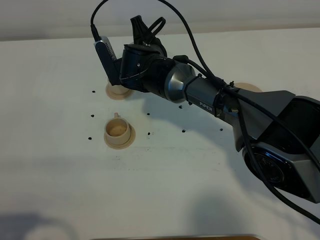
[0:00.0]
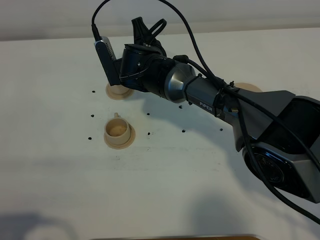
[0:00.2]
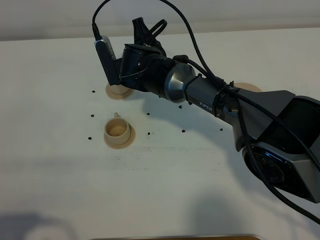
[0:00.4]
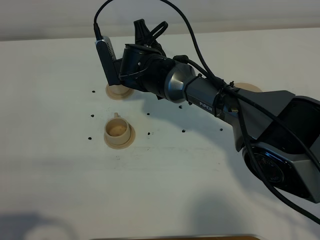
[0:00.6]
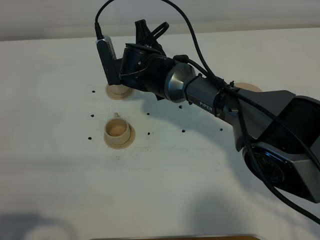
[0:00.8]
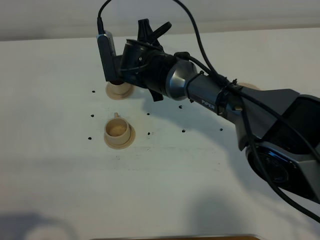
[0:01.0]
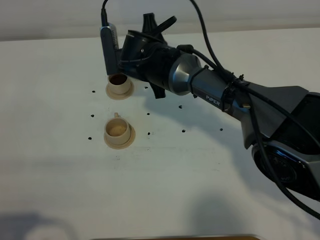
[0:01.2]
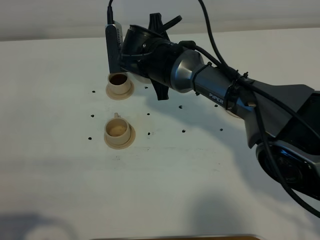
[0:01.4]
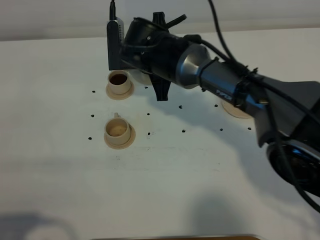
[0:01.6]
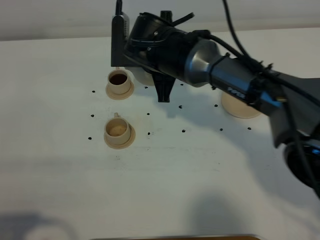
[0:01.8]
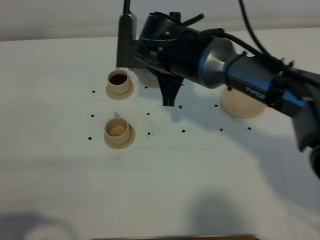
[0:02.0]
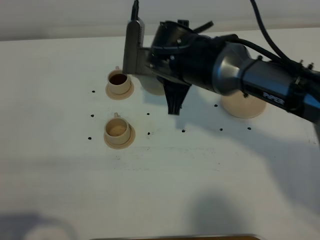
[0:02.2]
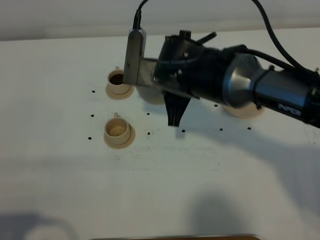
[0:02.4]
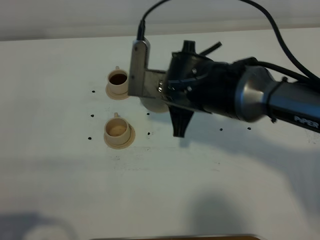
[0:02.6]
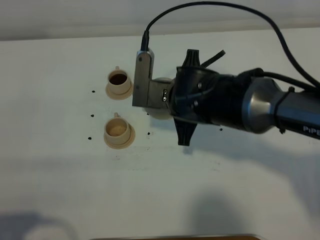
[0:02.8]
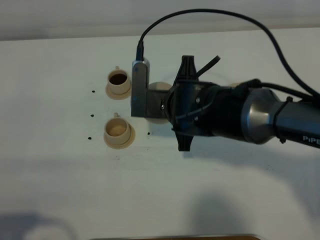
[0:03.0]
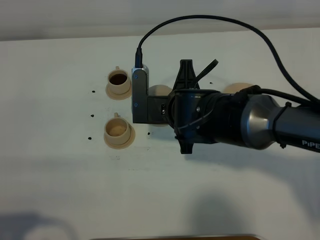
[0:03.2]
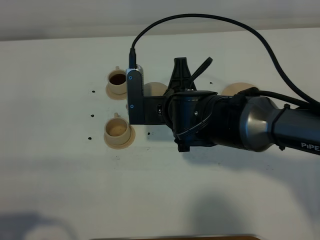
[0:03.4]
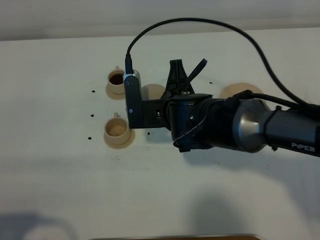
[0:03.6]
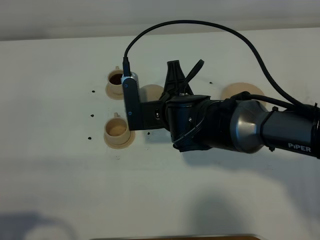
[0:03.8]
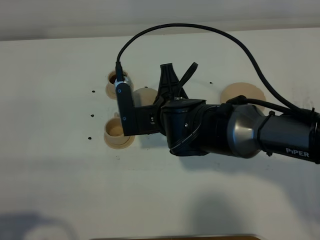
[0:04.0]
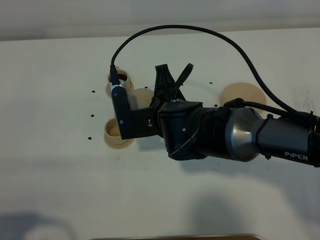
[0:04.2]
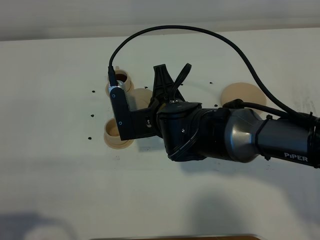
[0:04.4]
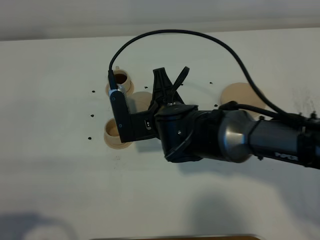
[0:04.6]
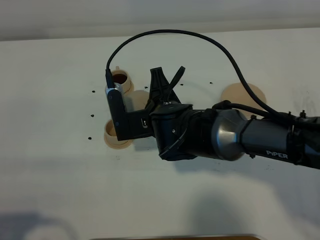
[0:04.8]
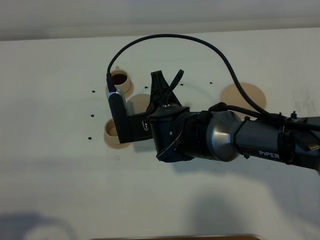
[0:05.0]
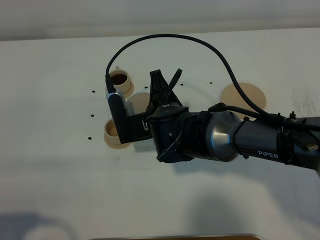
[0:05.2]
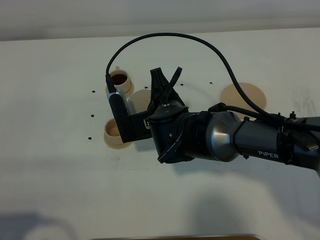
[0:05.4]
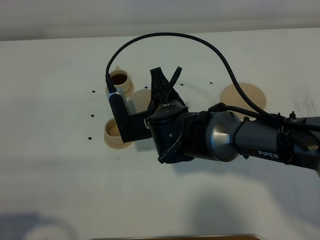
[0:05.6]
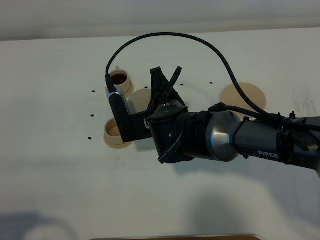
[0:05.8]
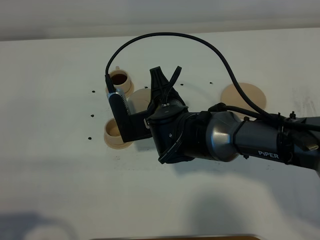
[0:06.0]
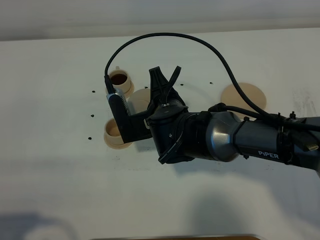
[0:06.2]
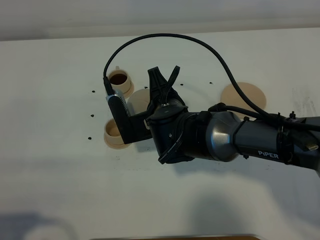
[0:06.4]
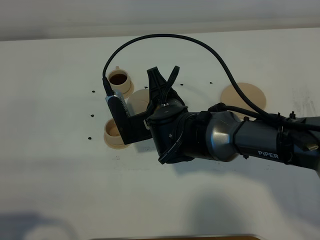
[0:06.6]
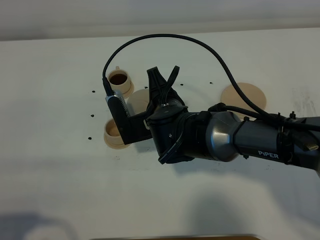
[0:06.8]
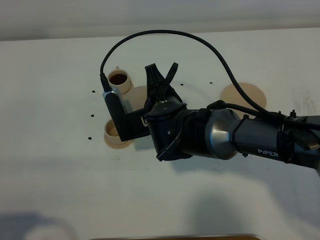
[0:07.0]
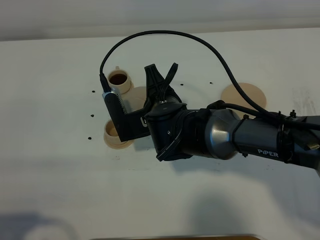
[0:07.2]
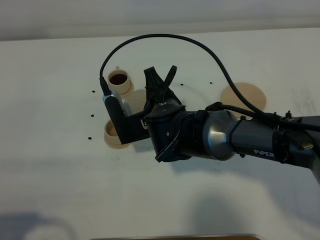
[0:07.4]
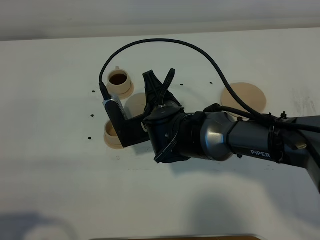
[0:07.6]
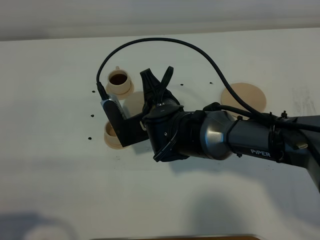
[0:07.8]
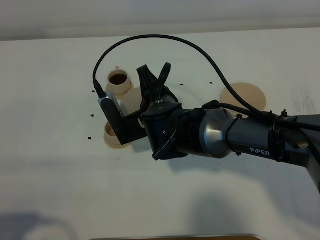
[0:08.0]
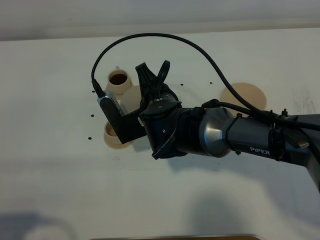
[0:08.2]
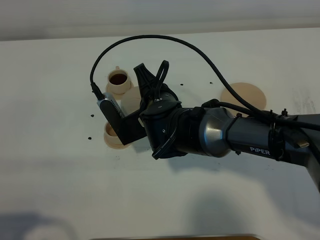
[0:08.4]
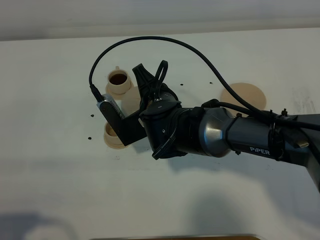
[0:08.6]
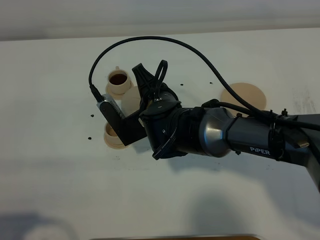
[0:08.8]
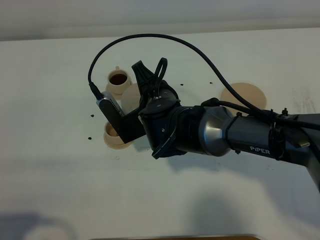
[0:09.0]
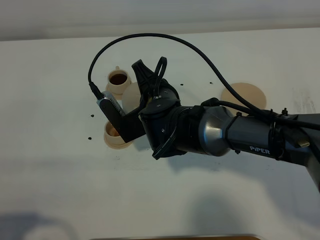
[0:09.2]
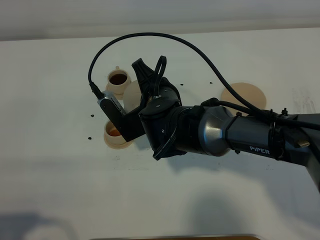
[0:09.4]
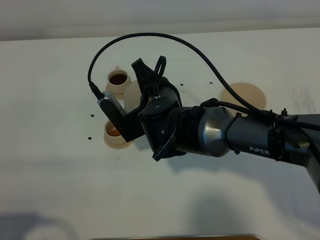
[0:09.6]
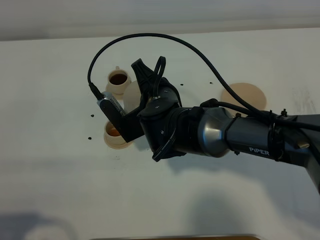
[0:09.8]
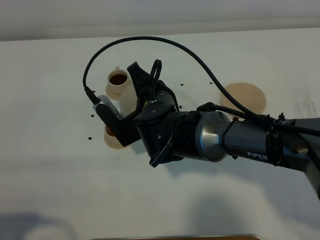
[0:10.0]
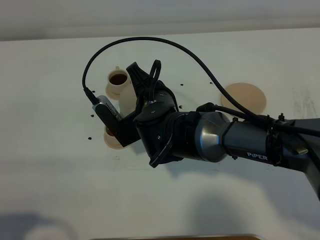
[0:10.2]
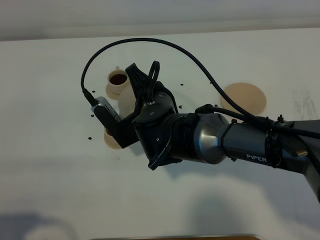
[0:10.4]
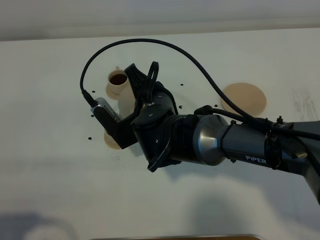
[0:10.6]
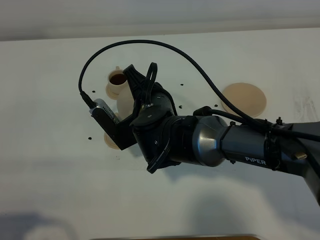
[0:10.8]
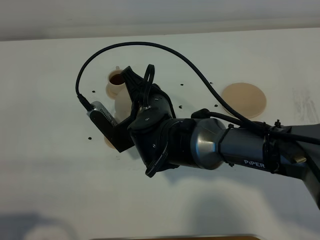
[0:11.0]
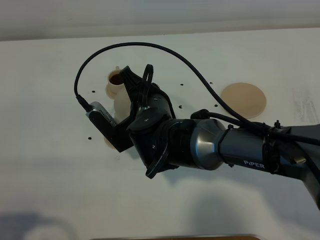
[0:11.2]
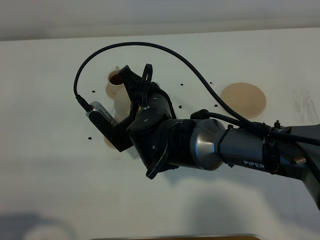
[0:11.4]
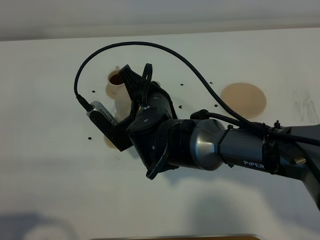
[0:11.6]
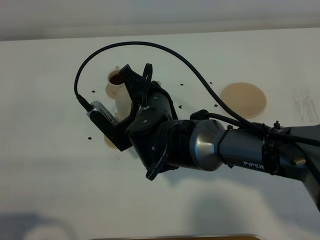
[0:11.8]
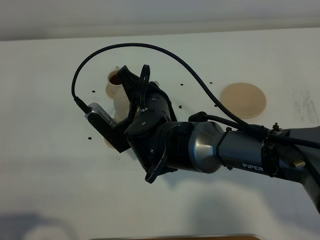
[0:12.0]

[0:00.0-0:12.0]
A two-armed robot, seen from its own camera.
Task of the whole recording: grasp the brown teapot and pour the tea into the two brown teacups one by one, put the brown teapot back in its original place.
0:00.0 to 0:01.6: The right gripper ends up some 5 cm from where it was.
0:01.6 to 0:03.0: The right gripper moves backward, roughly 10 cm.
0:04.4 to 0:07.6: The grippers stay close to where they were, moving slightly.
0:07.6 to 0:09.0: The grippers move only a little.
0:09.0 to 0:10.4: Neither gripper changes place.
0:10.4 to 0:12.0: The grippers move only a little.

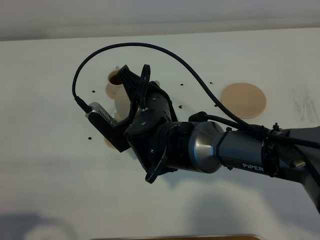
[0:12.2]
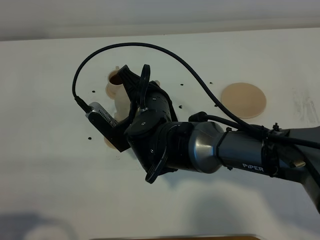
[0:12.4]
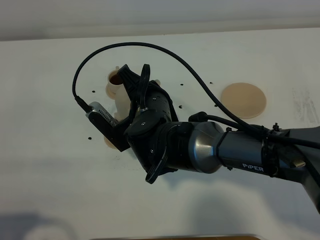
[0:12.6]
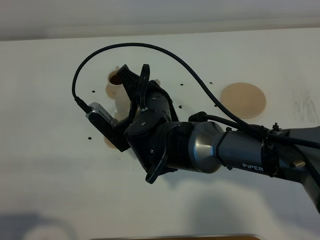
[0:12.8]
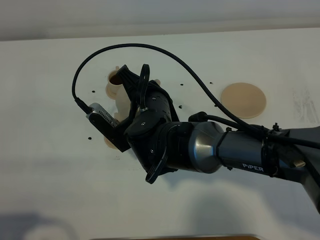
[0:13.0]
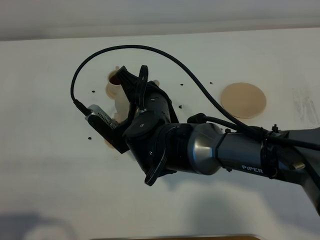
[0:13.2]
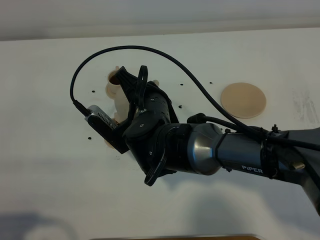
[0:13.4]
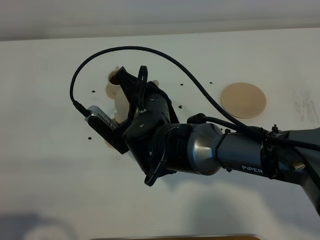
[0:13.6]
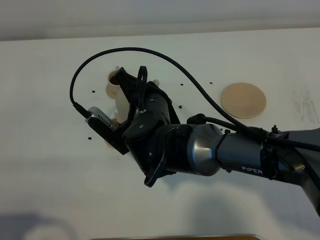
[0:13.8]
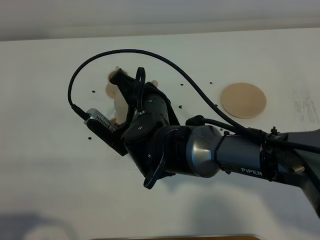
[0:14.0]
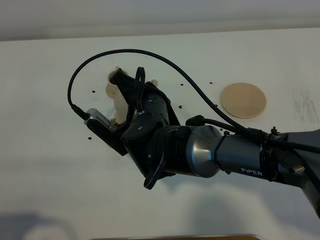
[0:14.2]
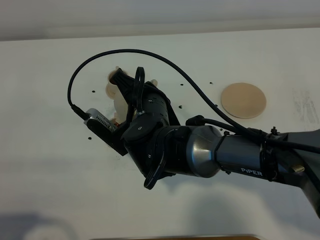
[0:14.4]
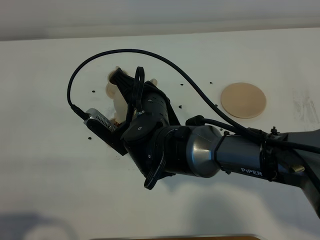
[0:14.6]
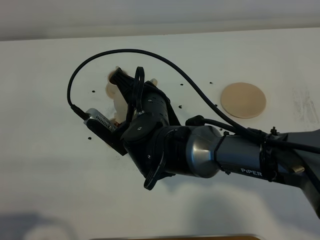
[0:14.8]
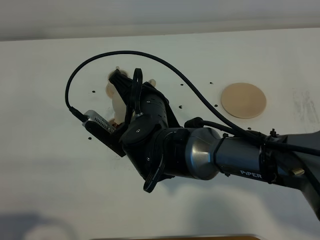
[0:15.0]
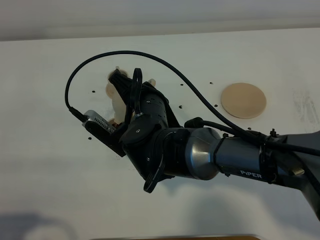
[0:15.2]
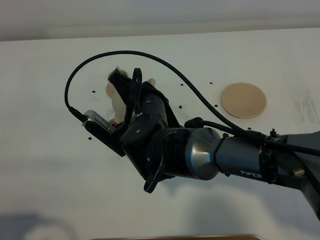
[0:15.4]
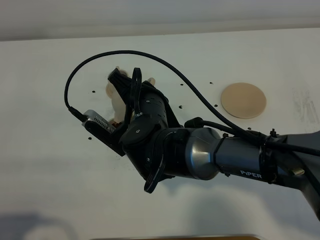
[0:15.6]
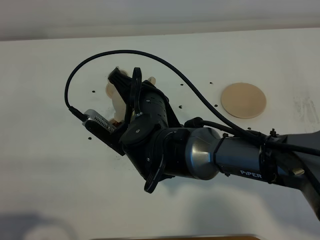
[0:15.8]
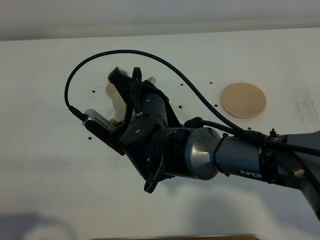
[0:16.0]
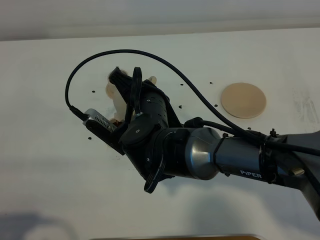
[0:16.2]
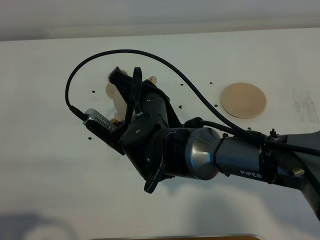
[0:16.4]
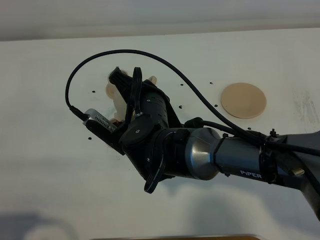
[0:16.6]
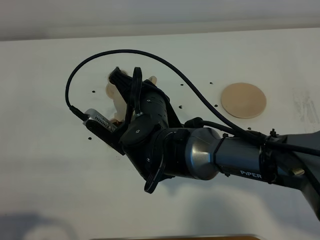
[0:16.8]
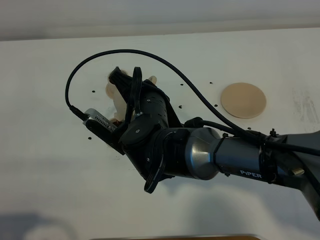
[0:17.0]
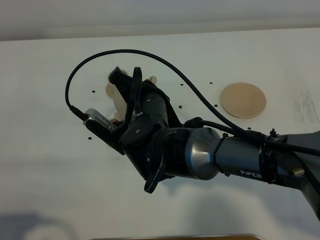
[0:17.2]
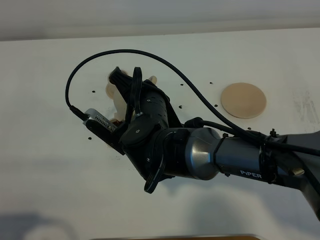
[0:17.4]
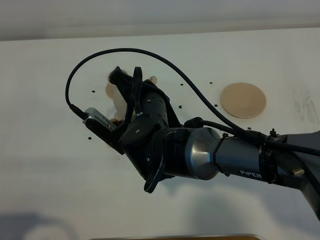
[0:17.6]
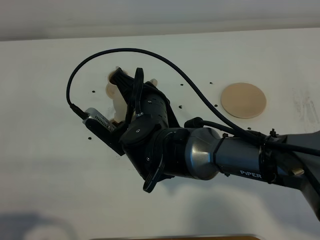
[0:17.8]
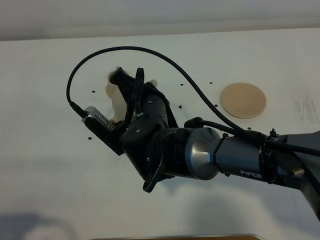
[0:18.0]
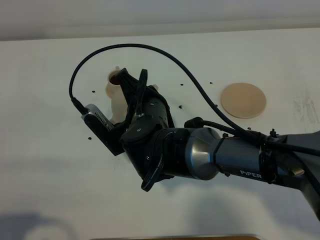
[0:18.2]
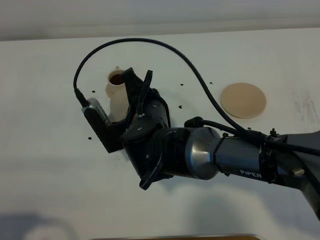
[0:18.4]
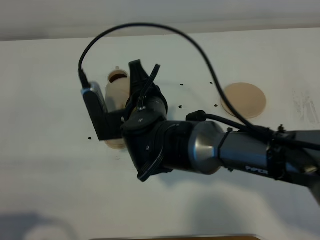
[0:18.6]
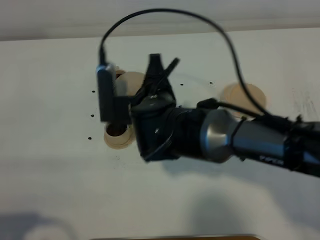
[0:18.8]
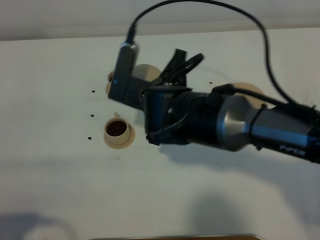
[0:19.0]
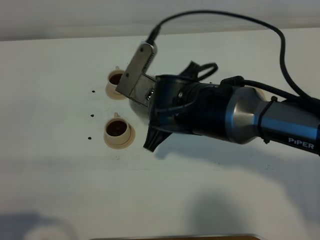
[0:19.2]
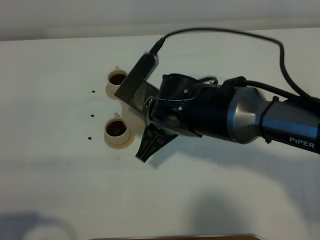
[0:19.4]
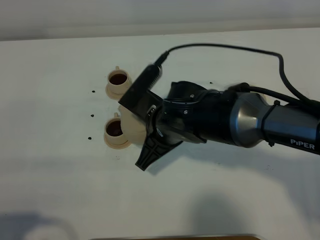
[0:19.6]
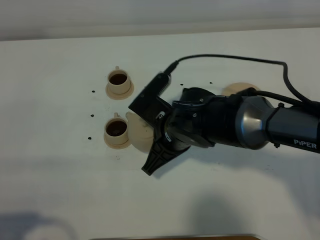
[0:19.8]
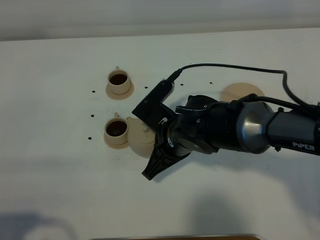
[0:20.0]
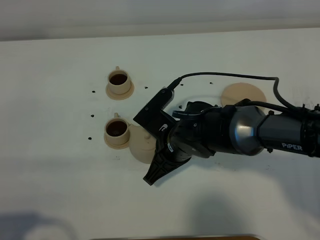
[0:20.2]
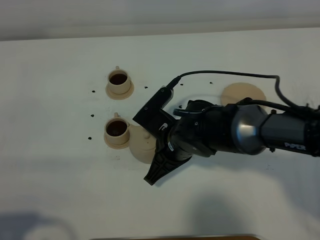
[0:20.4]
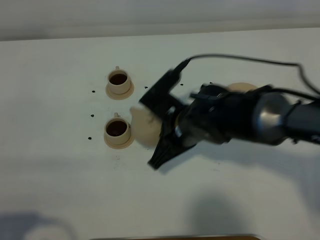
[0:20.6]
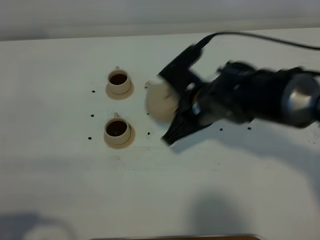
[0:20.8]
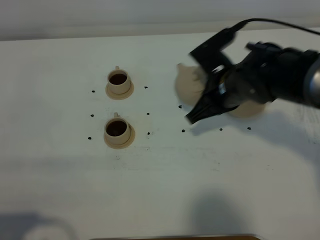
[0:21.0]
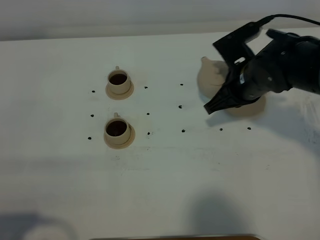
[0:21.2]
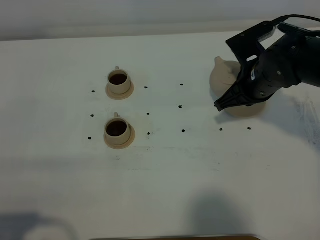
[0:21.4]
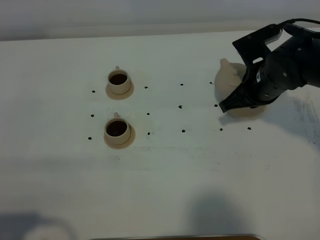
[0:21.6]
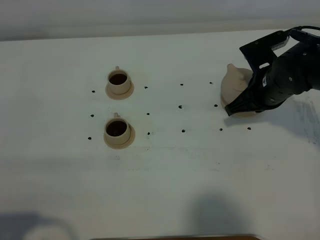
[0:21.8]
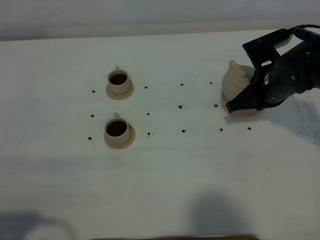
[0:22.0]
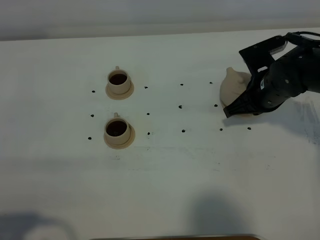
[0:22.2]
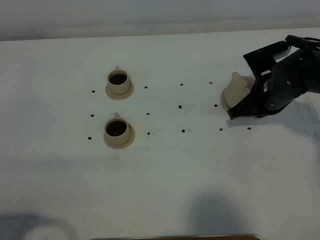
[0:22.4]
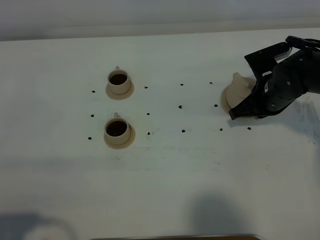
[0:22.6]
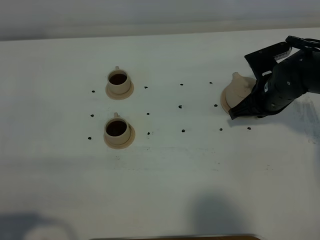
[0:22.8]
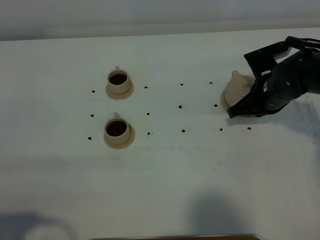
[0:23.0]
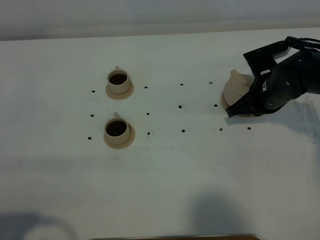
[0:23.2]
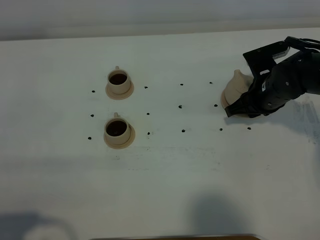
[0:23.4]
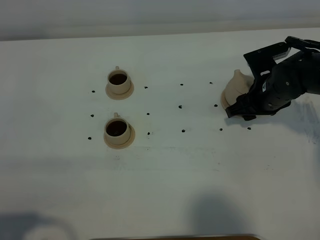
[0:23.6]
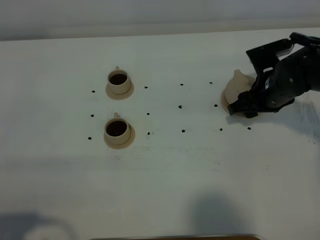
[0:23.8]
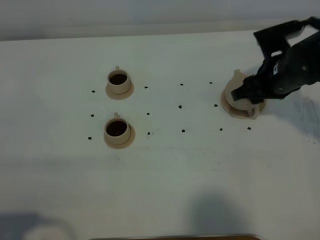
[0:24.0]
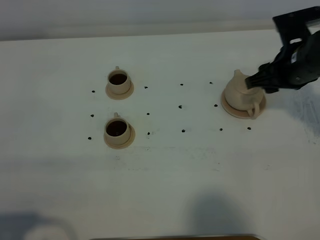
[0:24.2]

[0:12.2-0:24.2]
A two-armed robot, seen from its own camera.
Task of the whole recording: grasp the brown teapot and pour the tea into the two brown teacups one by one, put the brown teapot back in its original place.
Step, 0:12.2 to 0:18.4: Pour tea into the teacup with the right gripper.
0:12.2 to 0:13.8: The two grippers keep their place.
0:13.8 to 0:16.6: The two grippers keep their place.
0:16.6 to 0:18.2: The grippers move only a little.
0:18.2 to 0:19.8: The right gripper ends up about 5 cm from where it was.
0:19.8 to 0:21.2: The right gripper travels to the right and forward by some 15 cm.
0:21.2 to 0:22.6: The right gripper heads to the right and downward, covering roughly 10 cm.
0:22.6 to 0:24.2: The right gripper goes roughly 10 cm upward, and opens up.
